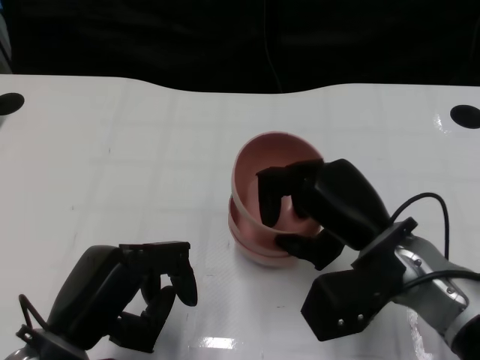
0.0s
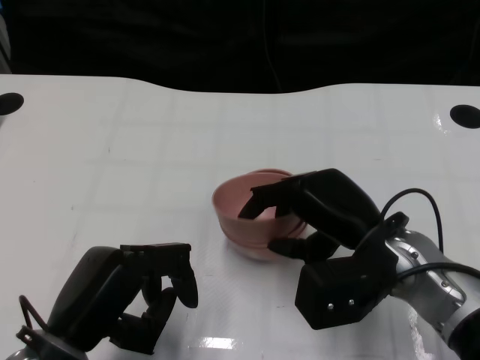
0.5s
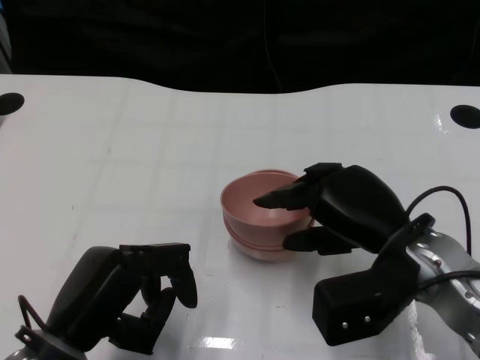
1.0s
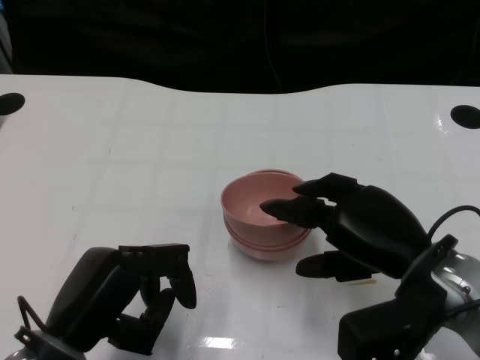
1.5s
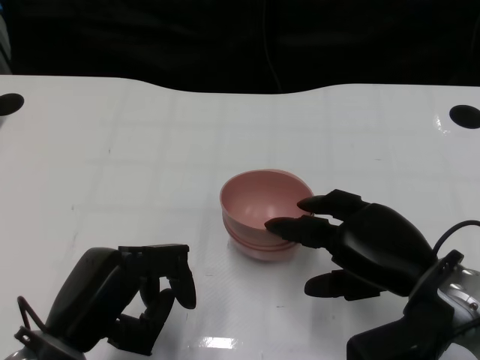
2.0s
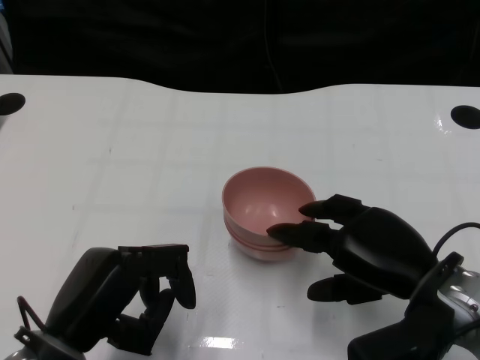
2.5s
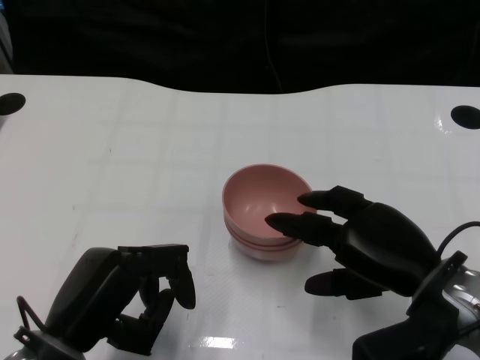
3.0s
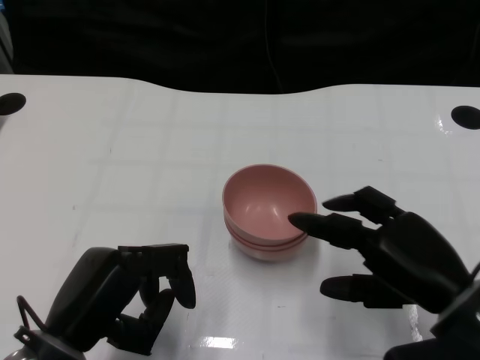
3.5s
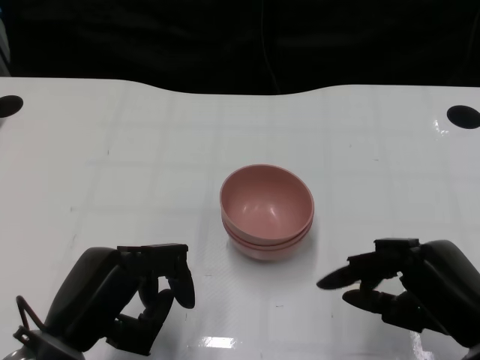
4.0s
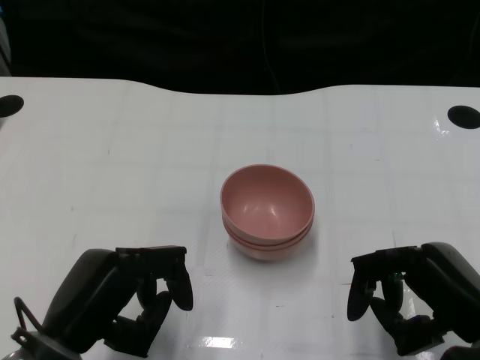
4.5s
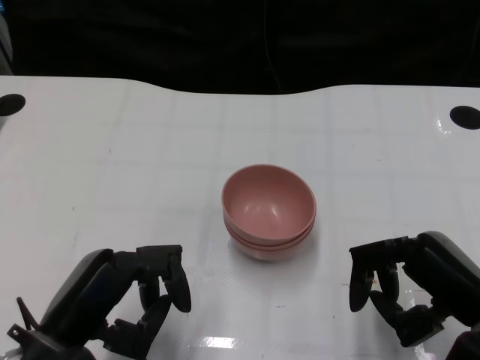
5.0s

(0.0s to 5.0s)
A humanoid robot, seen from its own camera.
Task of the whole recording: Pick up the bowl on one side of the table and place it on top of the middle bowl, then pick up the bowl on the other side of the table and place it on top of the middle bowls.
Step, 0.0s - 3.0s: Place the bowl on the right onto the bowl in the middle with right gripper.
0.0s - 2.5s: The right hand moves about 5 cm.
2.5s - 5.0s: The right hand shifts by about 5 cm.

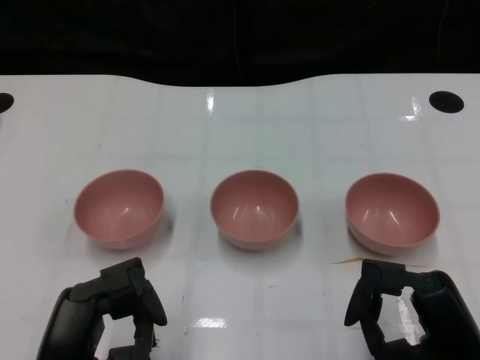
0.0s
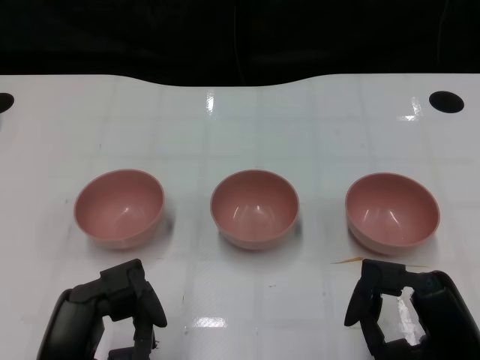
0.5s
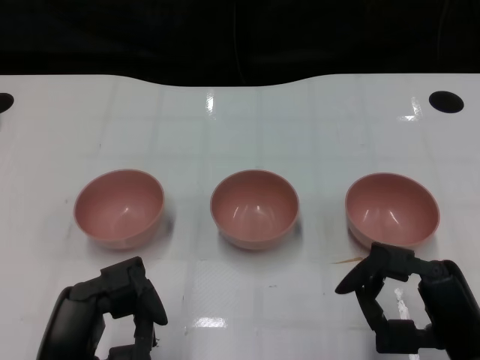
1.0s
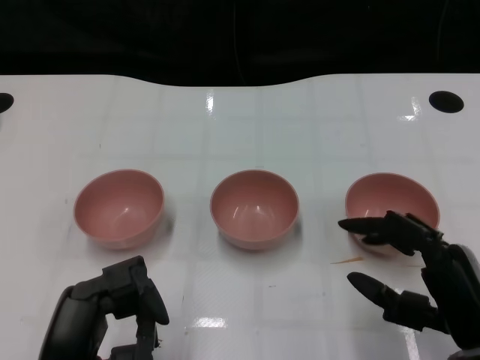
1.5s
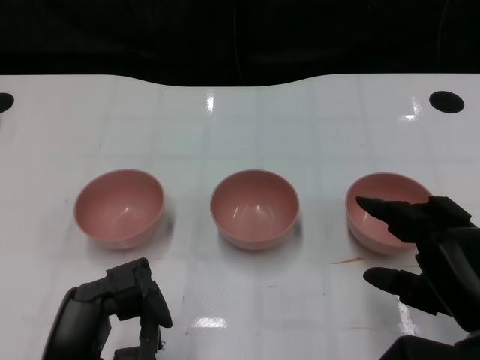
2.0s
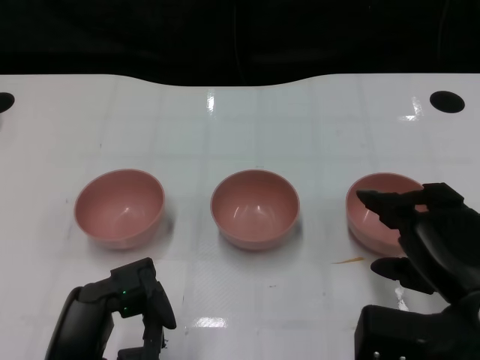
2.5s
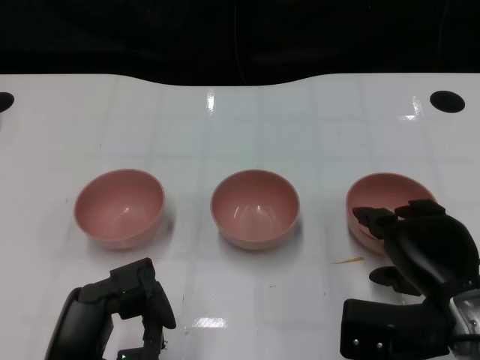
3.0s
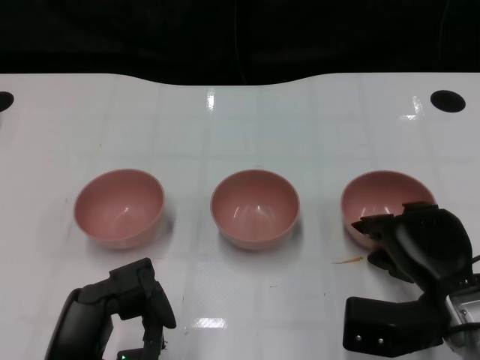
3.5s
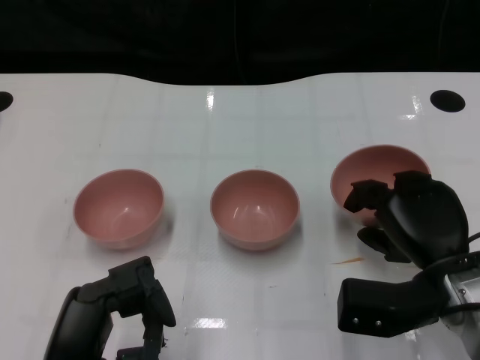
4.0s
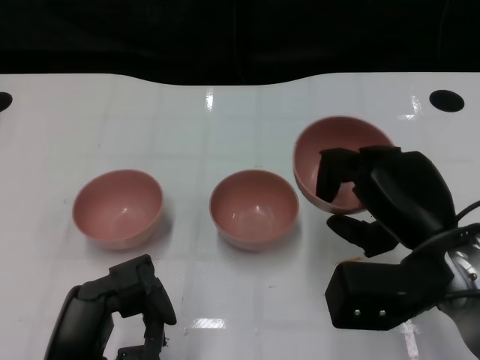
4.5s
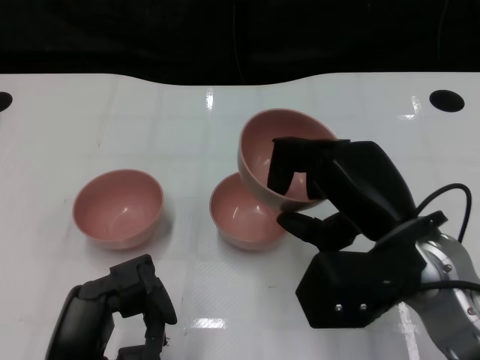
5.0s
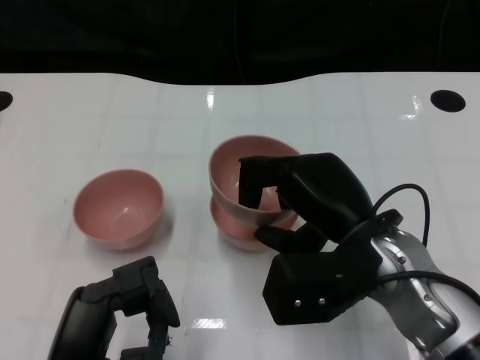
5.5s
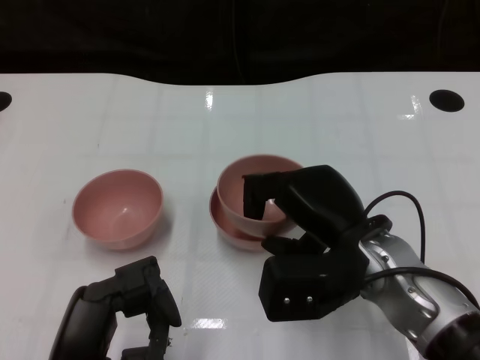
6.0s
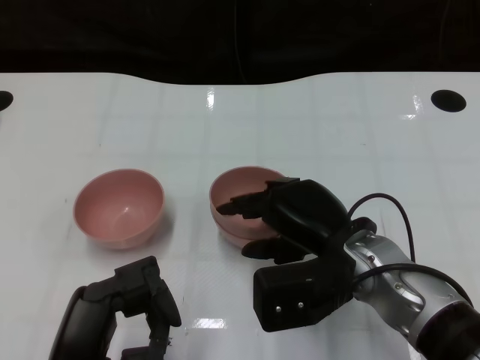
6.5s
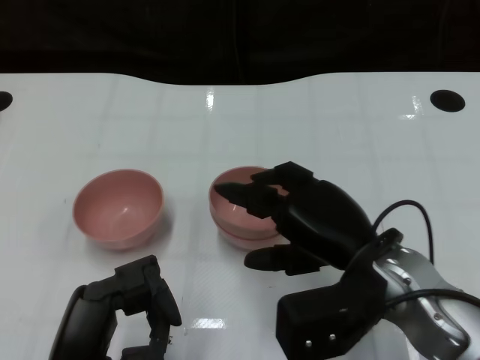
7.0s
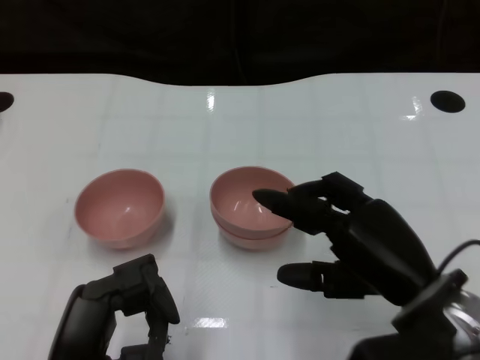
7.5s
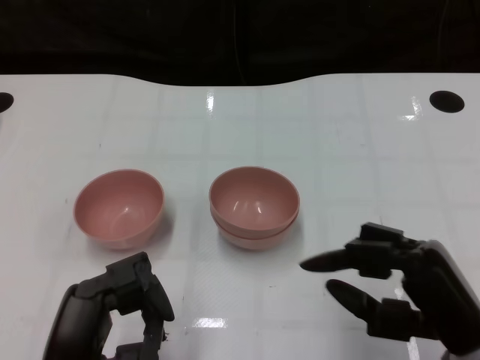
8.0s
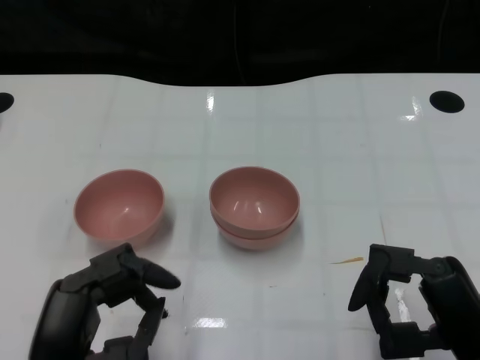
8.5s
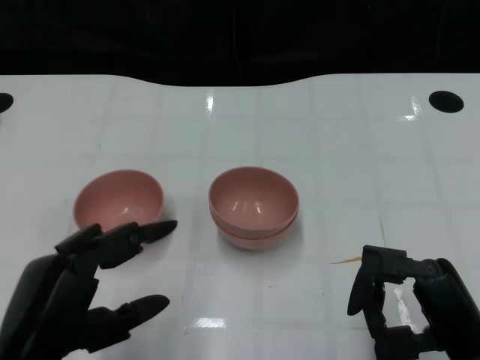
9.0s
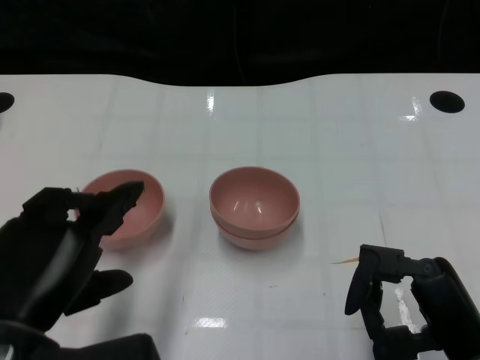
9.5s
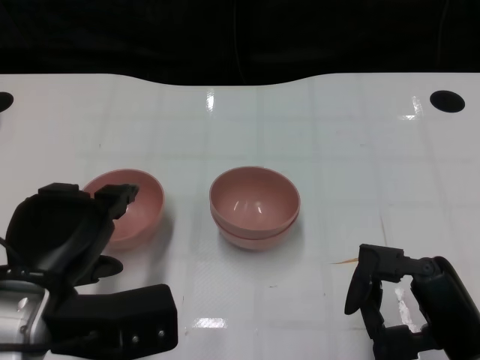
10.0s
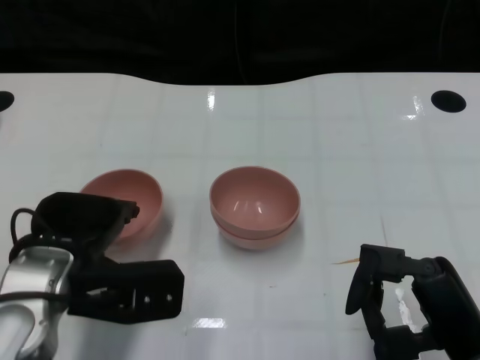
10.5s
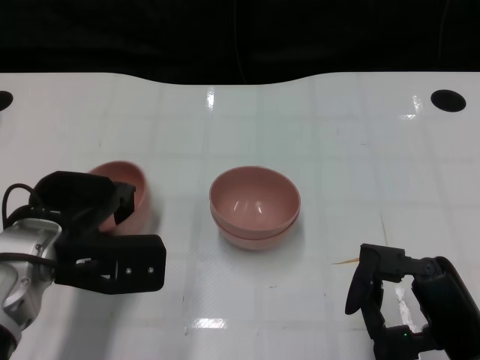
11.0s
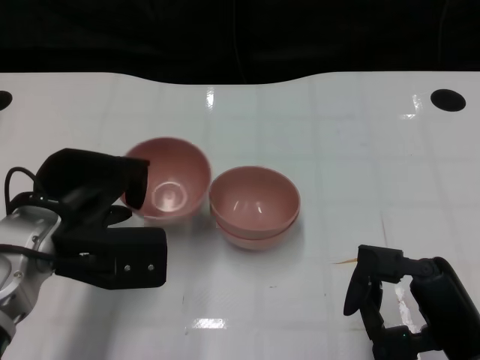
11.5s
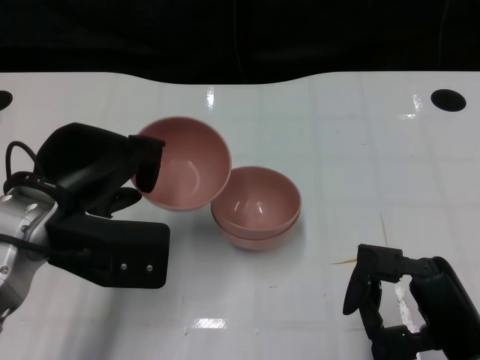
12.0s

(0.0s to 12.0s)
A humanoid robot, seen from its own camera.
Task of the whole recording: Pick up the bowl on one side of the table and place it on top of the middle bowl, then pick up the bowl on the other side of the table and place it on top of the middle bowls.
Step, 1.0s - 3.5s: Grasp the bowl on the right with the right gripper.
Step, 4.0s - 7.0s: Place the bowl on the right onto the bowl in the middle with right gripper.
Step, 7.5s - 11.0s: Grasp the bowl on the left with the left gripper.
2.0s - 4.0s: The right hand heads forward, covering about 10 cm.
4.0s - 6.0s: The right hand moves to the left, approximately 10 cm.
6.0s - 8.0s: The right hand travels backward and to the right by approximately 15 cm.
8.0s - 10.0s: The left hand heads forward and upward, covering approximately 10 cm.
10.0s - 12.0s: The left hand moves forward, about 5 cm.

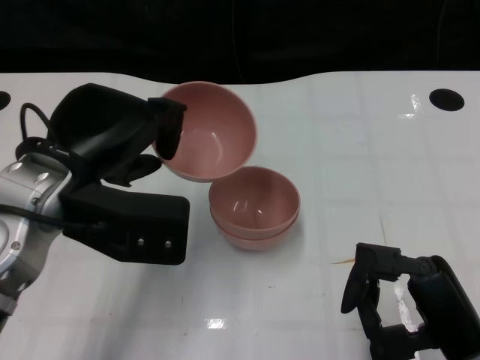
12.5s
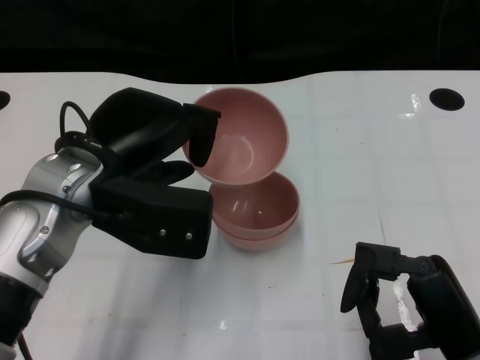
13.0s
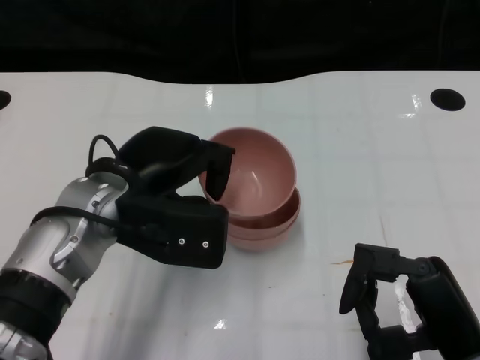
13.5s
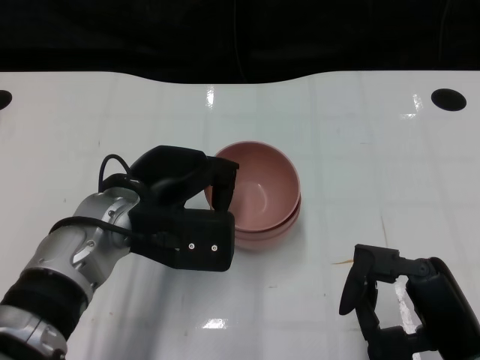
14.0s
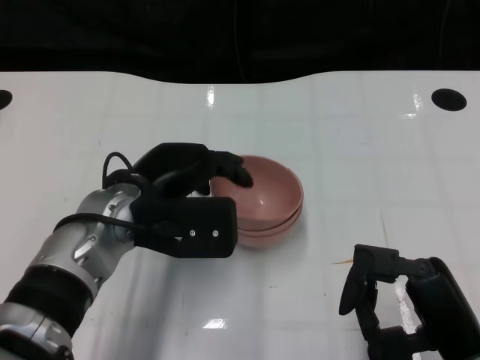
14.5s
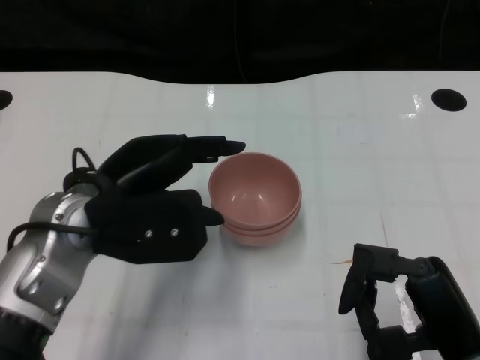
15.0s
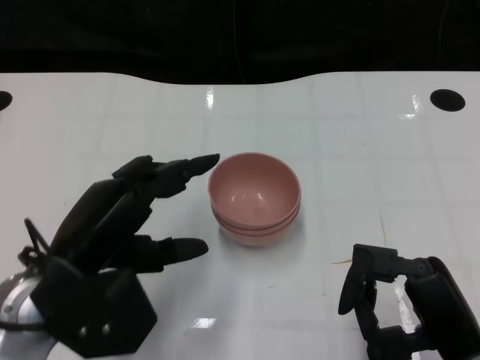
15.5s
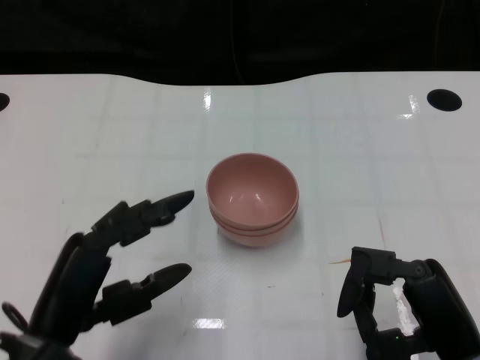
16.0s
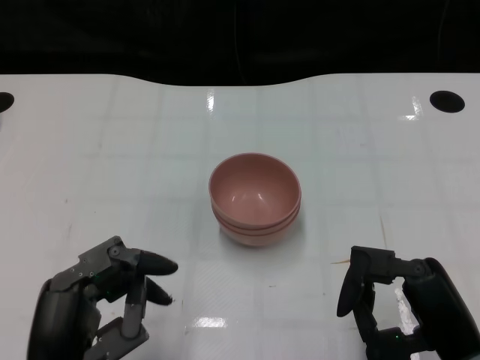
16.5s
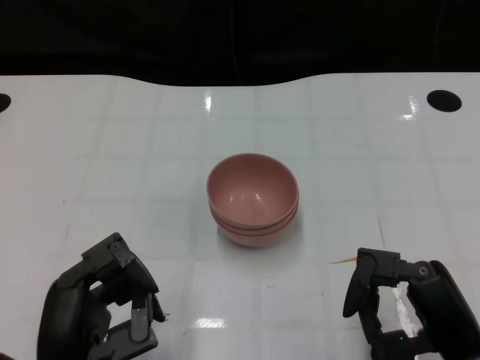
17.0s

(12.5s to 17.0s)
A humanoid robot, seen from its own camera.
Task of the whole recording: Pick up the bowl on one side of the table and place it on top of the middle bowl, then pick up the bowl on the other side of the table and place it on top of the middle bowls.
Step, 12.5s - 14.5s: Place the bowl on the left onto the bowl in the middle with left gripper.
12.5s - 14.5s: The left hand moves downward and to the right, some 10 cm.
14.5s - 17.0s: The left hand is displaced backward by roughly 15 cm.
